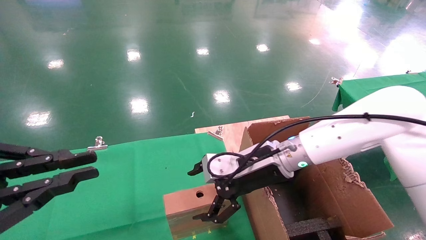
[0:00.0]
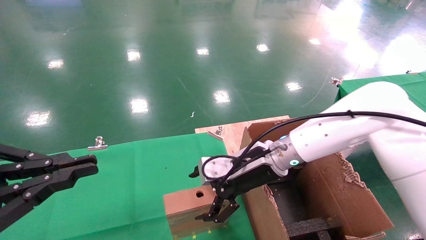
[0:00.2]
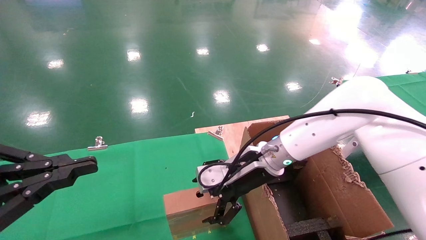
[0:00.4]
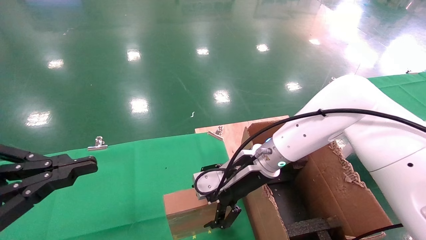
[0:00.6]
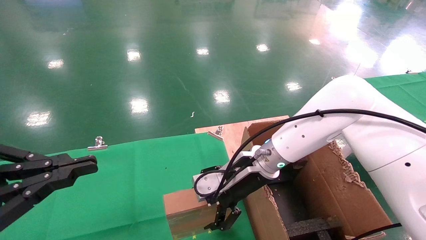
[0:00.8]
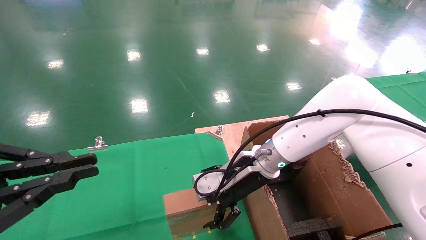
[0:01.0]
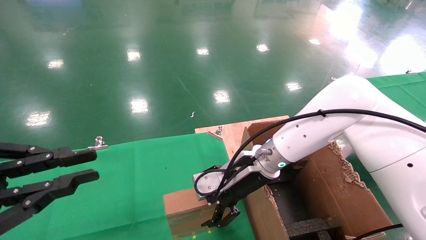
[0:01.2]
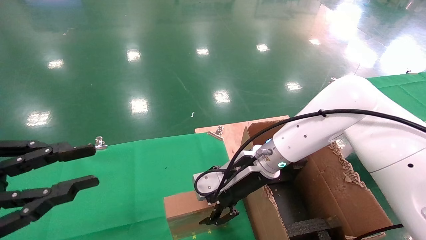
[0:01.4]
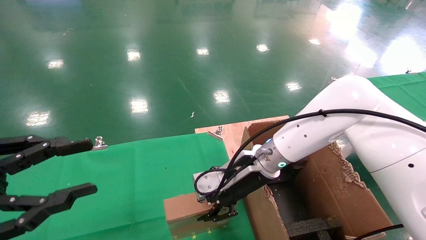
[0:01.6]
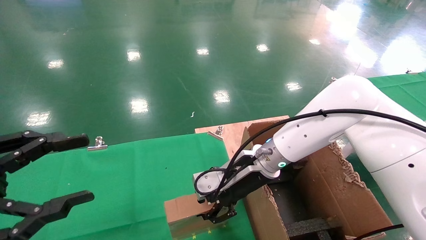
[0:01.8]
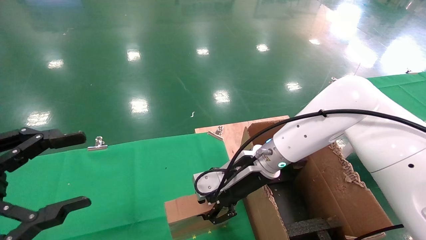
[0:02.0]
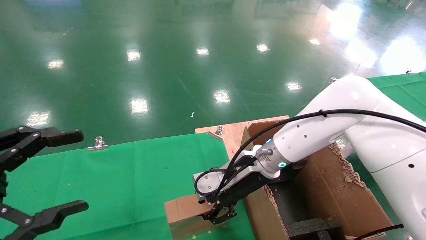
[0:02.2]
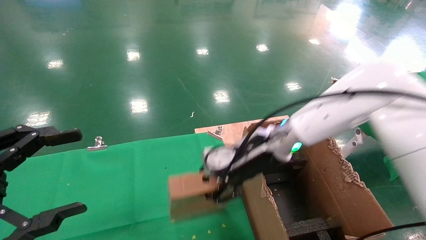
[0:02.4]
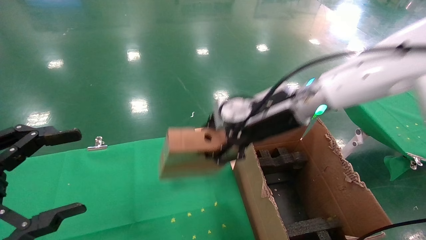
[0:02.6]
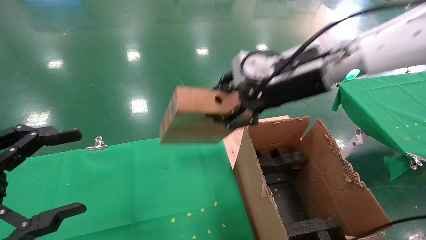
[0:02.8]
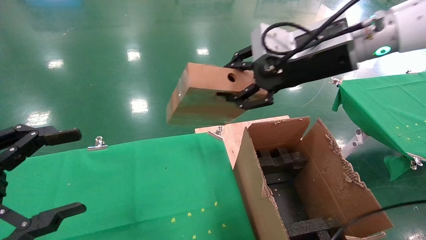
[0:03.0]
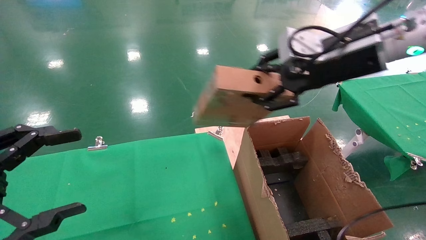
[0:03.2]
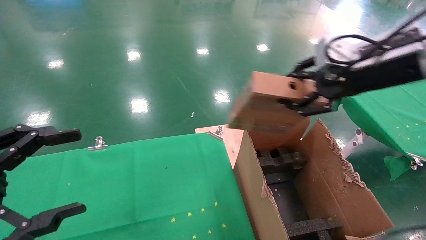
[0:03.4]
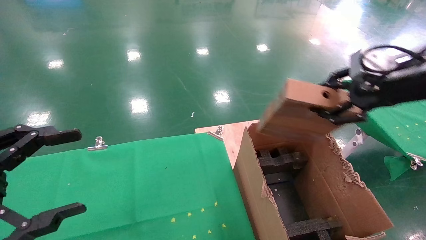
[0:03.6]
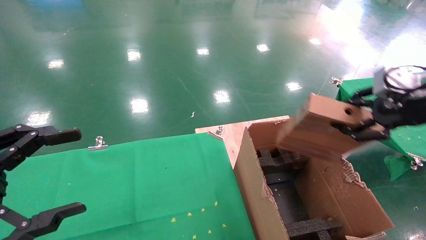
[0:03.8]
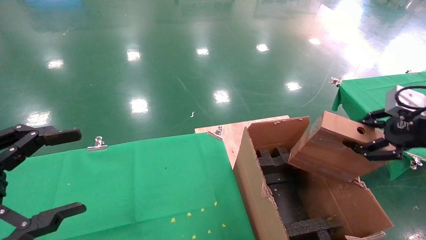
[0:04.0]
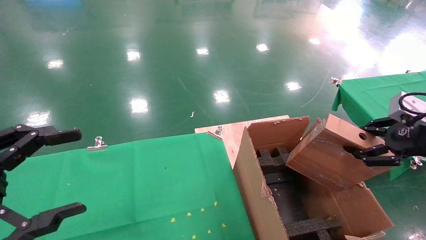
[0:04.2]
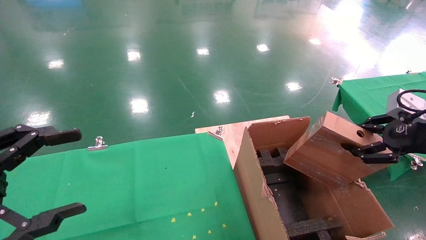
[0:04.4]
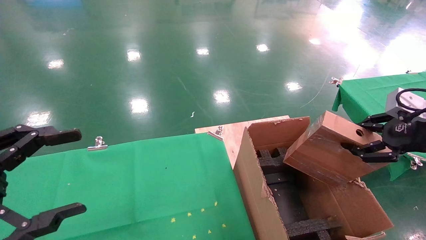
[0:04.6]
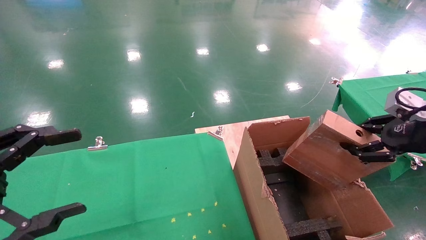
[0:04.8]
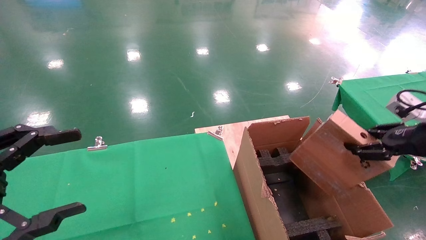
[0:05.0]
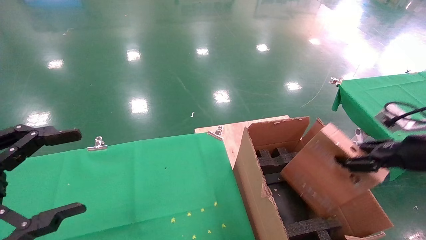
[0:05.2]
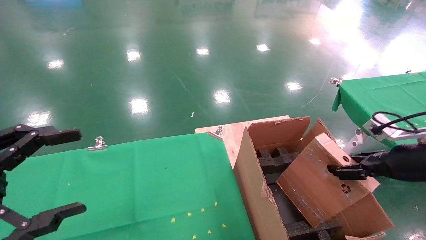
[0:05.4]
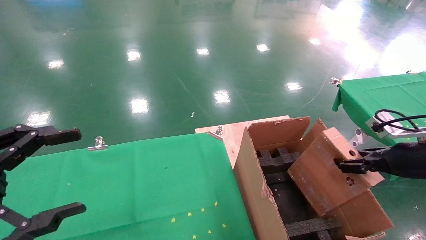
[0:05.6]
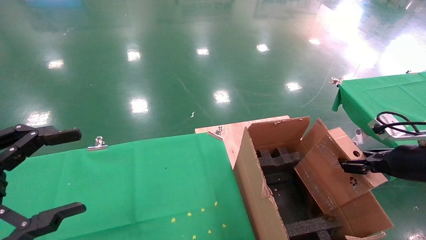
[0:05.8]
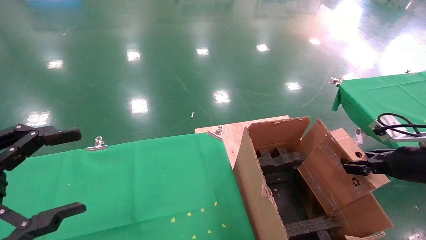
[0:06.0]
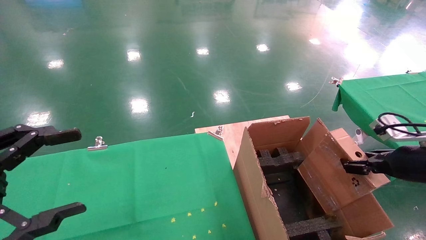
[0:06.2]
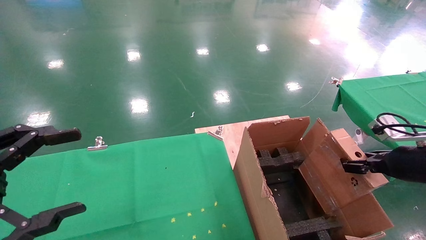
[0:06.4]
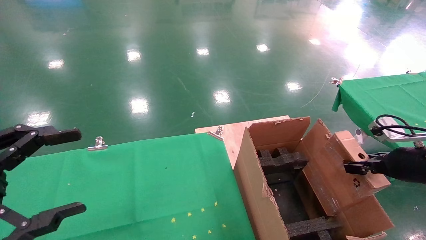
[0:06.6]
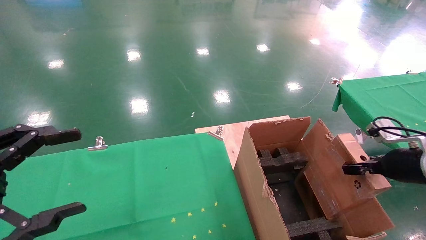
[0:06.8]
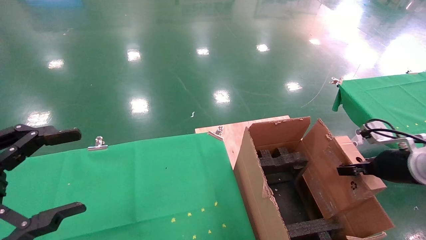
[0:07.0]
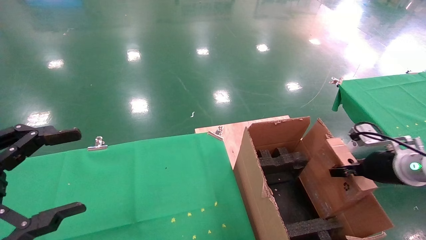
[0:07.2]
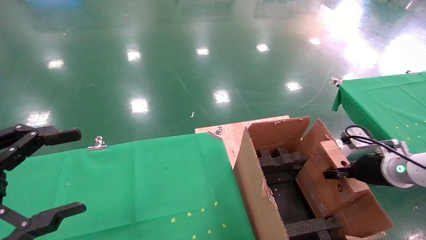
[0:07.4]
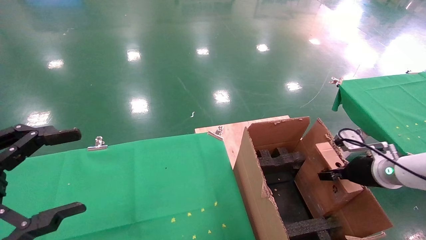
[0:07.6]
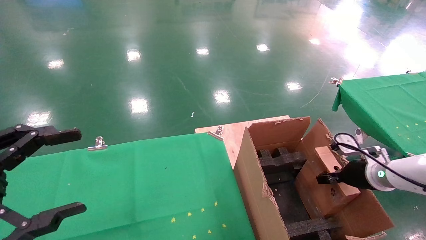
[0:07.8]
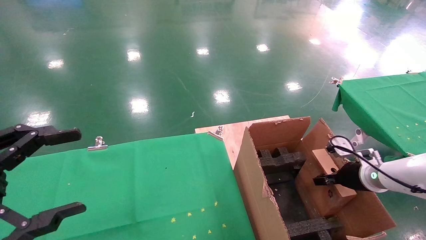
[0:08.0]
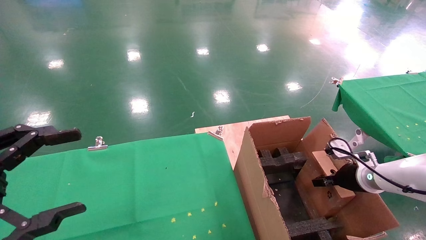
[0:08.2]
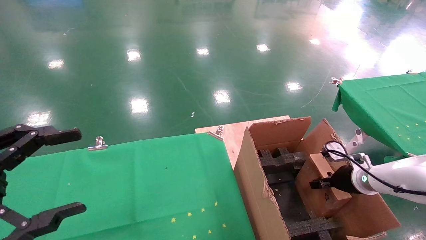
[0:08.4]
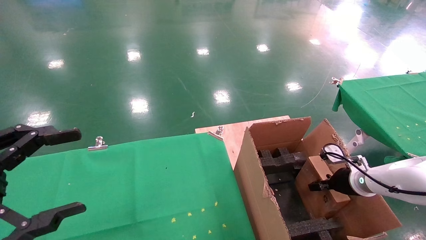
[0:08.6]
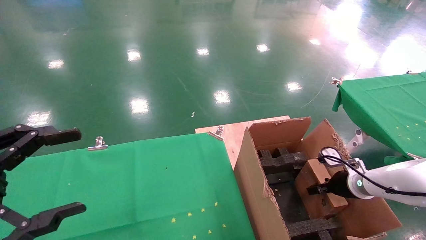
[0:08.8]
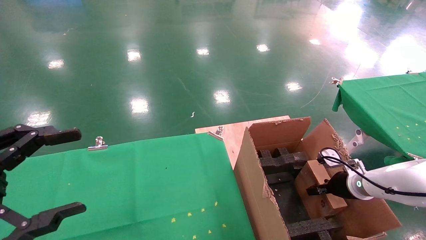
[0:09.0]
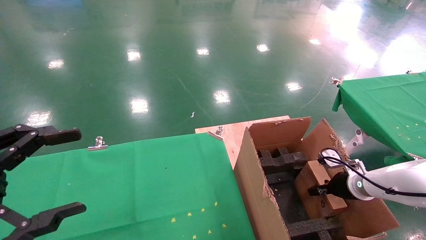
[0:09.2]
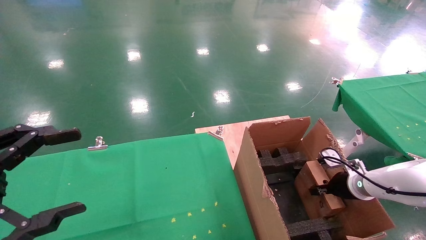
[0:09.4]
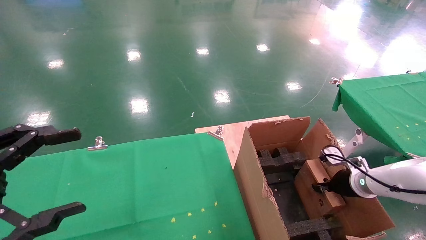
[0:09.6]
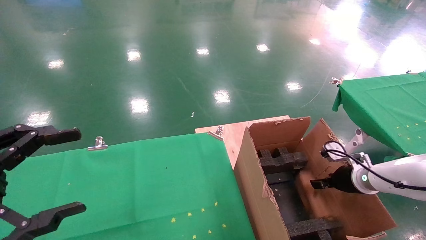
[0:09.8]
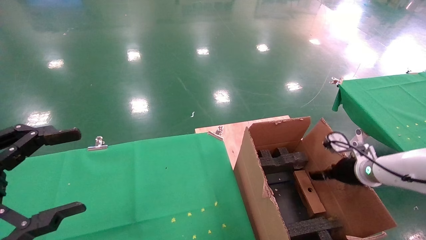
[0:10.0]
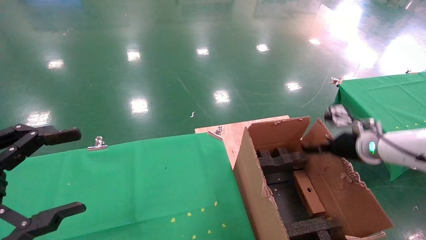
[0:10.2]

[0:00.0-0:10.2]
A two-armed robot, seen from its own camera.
Task of the whole recording: using a robotic arm to pick up a cardboard box and palace it the carton.
Step, 0:00.0 to 0:02.0: Pick up the mouse and the power cord paper box.
0:00.0 to 0:01.4: There are only small adjustments of the grippers.
0:01.4 to 0:03.0: The left gripper opens its fingers, while the right gripper is displaced upward and to the right by some 25 cm, and closes.
0:03.0 to 0:04.4: The right gripper heads to the right, downward and backward, covering roughly 25 cm.
0:04.4 to 0:05.8: The right gripper goes about 10 cm downward.
0:05.8 to 0:07.2: The right gripper is displaced forward by some 5 cm.
0:07.2 to 0:08.8: The right gripper heads downward and forward, covering approximately 10 cm.
0:08.8 to 0:10.2: The right gripper is displaced upward by about 10 cm, and opens its fingers.

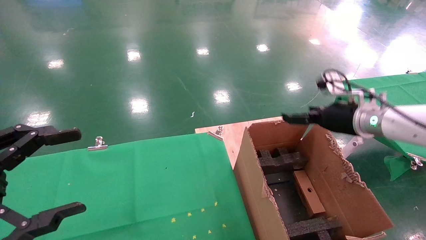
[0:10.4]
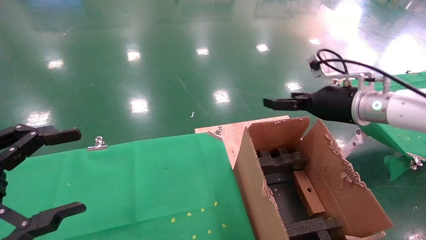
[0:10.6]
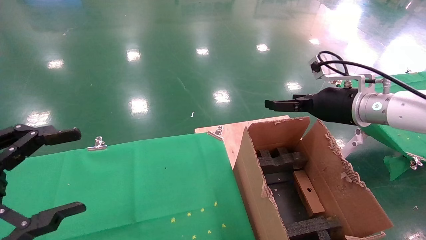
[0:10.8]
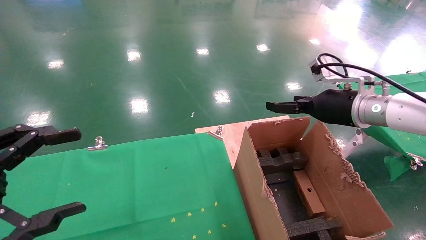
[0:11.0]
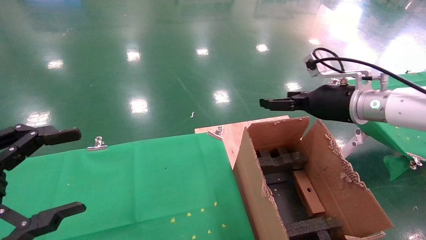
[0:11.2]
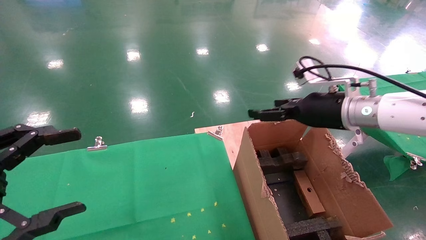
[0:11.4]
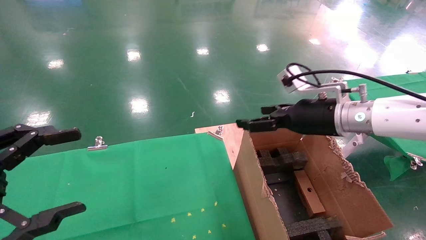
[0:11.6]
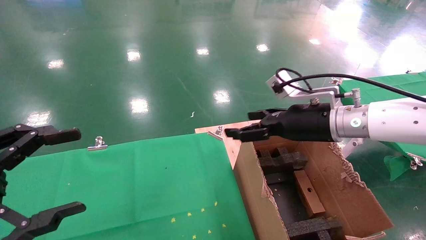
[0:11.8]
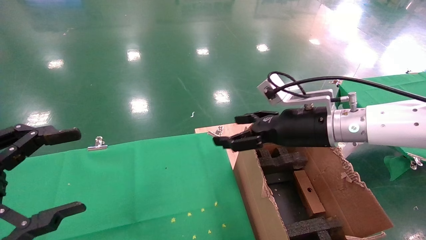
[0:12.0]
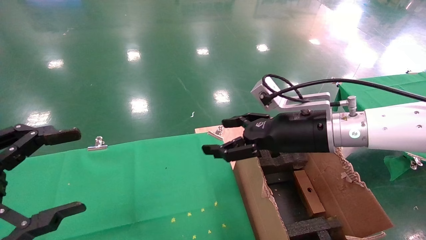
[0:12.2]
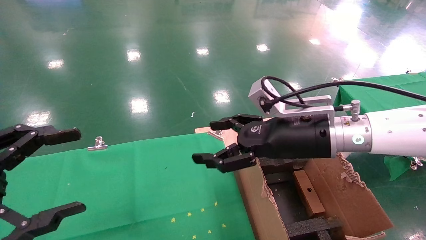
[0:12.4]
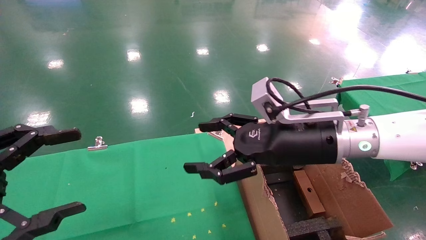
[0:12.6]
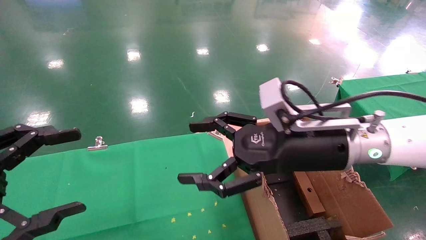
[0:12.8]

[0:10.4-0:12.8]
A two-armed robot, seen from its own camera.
Task of the whole recording: using a robotic arm to pick up a cardboard box and palace it the carton.
0:10.4 to 0:11.6: The right gripper travels to the left by some 10 cm.
0:11.6 to 0:12.8: The right gripper goes approximately 10 cm to the left and backward.
